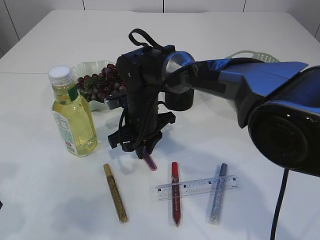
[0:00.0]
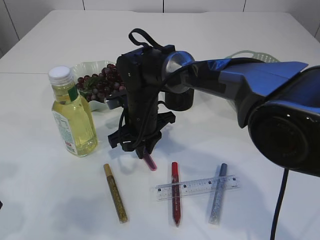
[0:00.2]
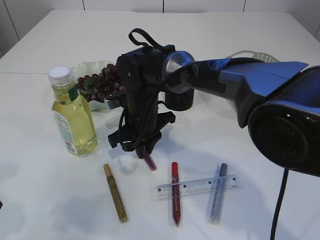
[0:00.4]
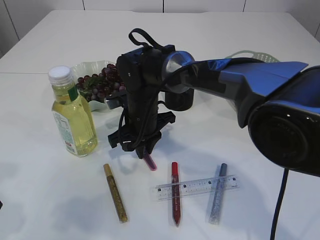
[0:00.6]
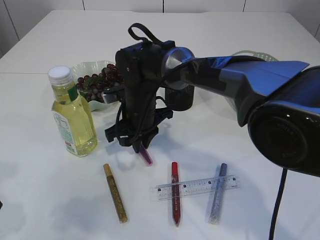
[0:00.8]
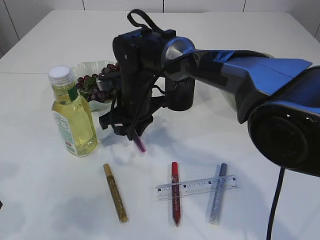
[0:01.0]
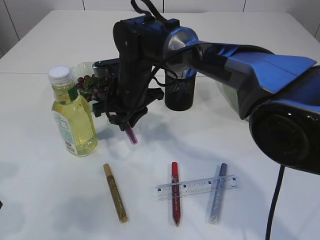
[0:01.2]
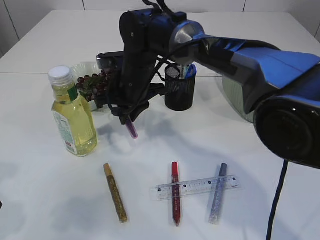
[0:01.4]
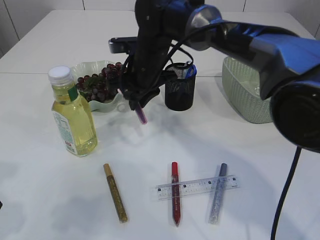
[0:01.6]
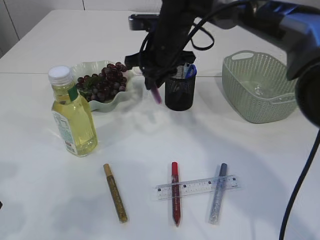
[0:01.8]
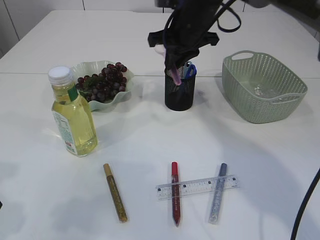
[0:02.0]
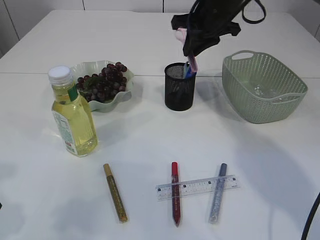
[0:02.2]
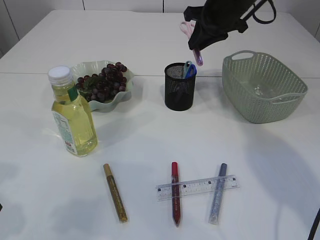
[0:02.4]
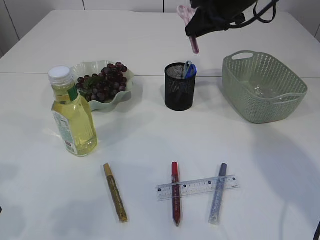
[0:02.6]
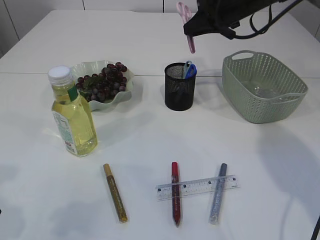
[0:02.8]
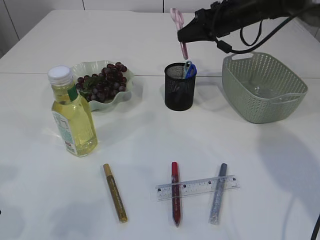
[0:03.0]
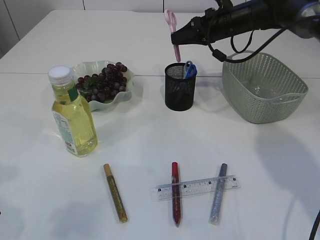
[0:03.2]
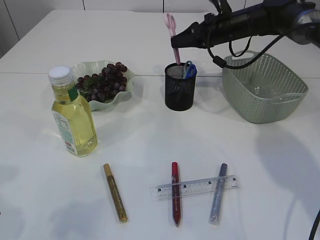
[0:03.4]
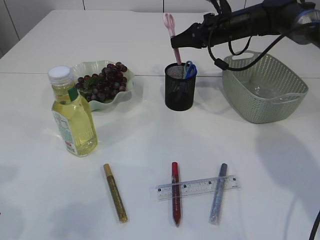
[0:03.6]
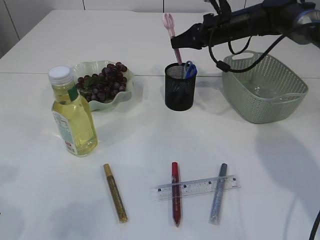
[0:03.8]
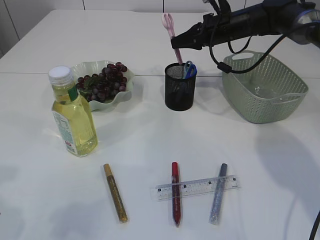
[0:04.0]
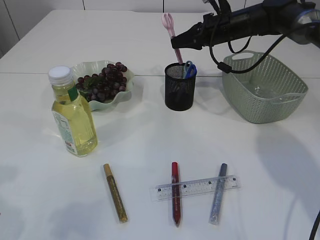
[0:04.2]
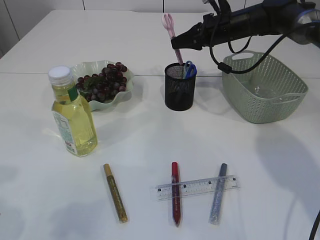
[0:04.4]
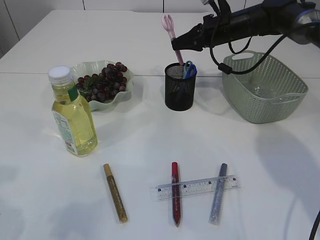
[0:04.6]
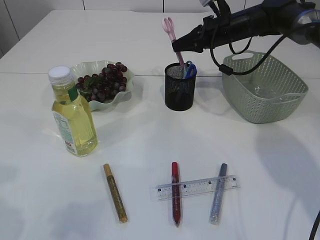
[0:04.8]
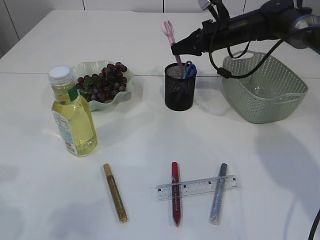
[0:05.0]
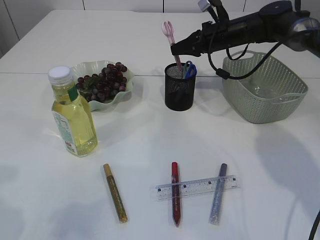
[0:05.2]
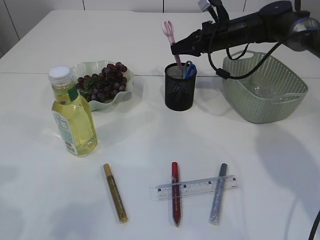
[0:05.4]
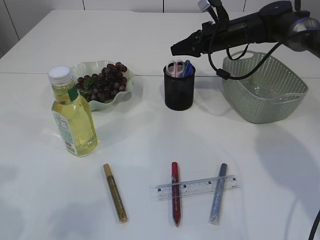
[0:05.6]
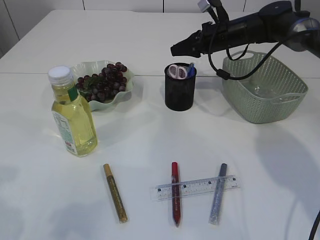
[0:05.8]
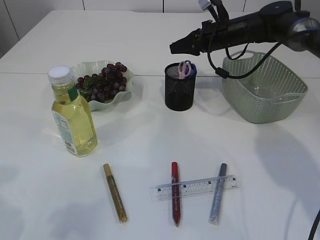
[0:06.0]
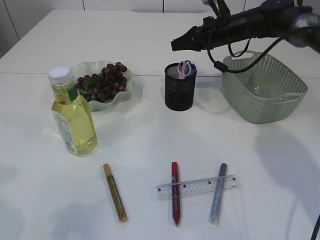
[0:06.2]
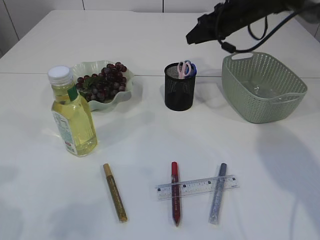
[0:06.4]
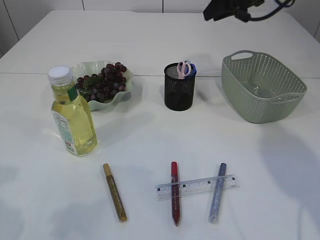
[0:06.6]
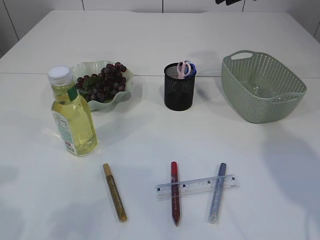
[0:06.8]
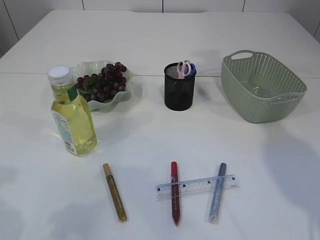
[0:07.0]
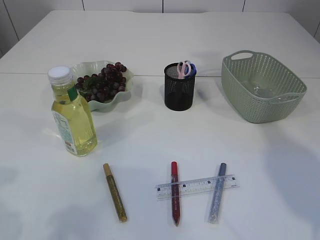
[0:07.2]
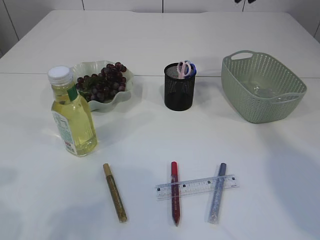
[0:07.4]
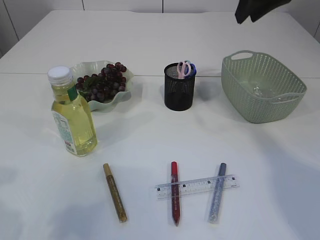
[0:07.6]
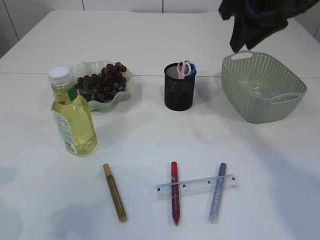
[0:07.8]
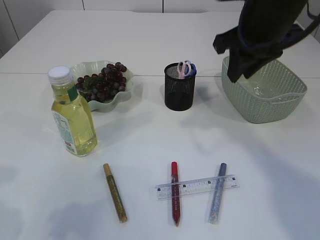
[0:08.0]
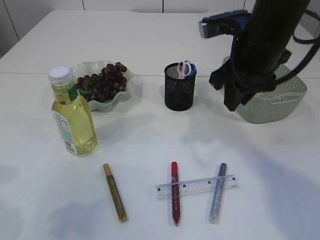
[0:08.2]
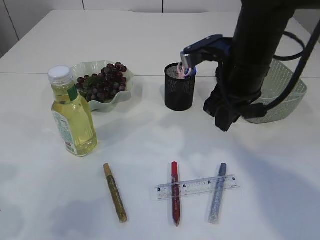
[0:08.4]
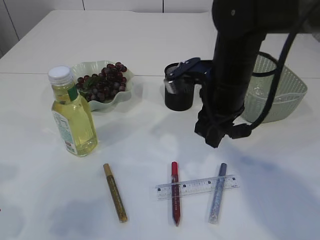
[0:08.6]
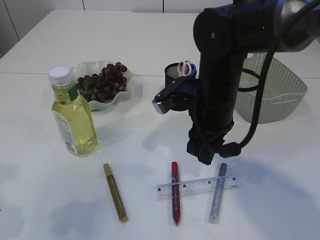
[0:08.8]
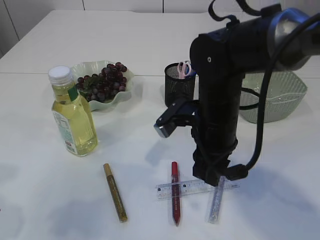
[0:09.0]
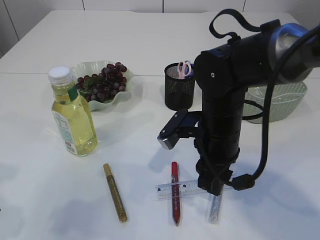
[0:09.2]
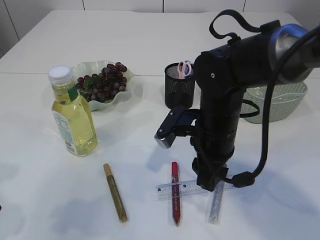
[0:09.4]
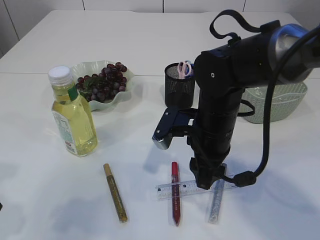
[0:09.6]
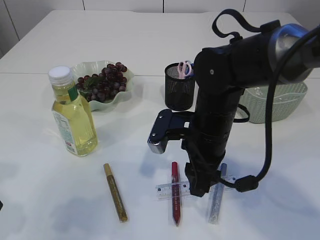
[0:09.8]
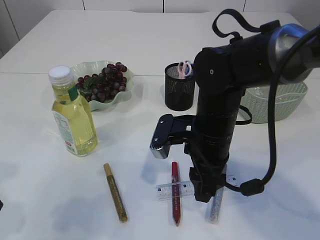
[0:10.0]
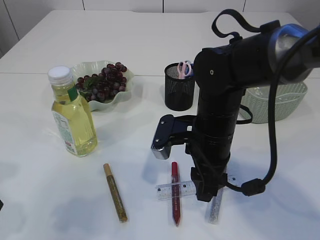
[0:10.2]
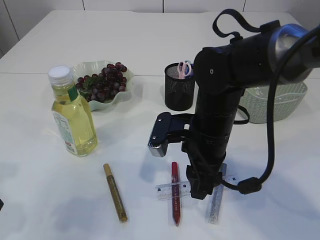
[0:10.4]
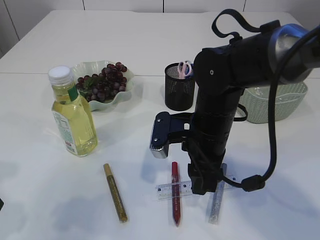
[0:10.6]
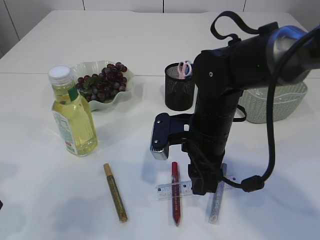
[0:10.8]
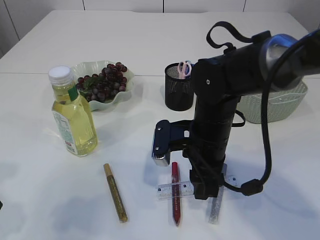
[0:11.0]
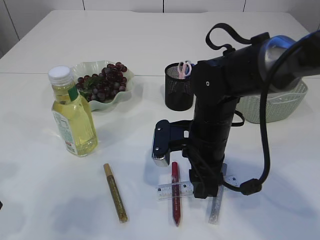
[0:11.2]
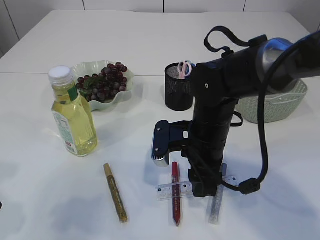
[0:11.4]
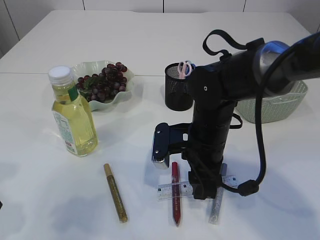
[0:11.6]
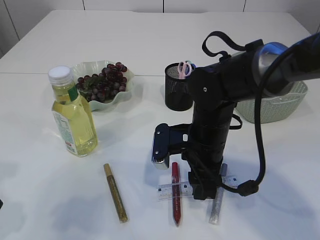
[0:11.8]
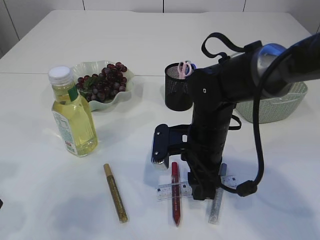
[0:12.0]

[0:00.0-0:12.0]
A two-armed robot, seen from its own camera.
Step, 0:01.4 to 0:06.4: Place the pink scissors into the pen holder.
0:00.0 to 0:01.6: The right gripper goes approximately 10 cm upward.
0:01.6 to 0:03.0: The right gripper shifts about 20 cm to the right and forward.
0:04.4 to 0:06.0: There are only small adjustments of the grippers.
0:06.0 to 0:07.6: The right gripper heads upward and backward, covering about 25 cm.
0:07.6 to 0:09.0: The right gripper moves downward, to the left and backward, roughly 25 cm.
0:10.4 to 0:12.0: The grippers stay close to where they were, moving slightly.

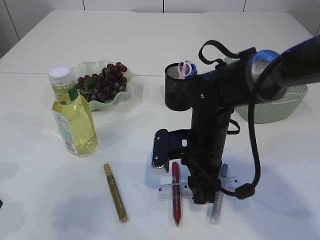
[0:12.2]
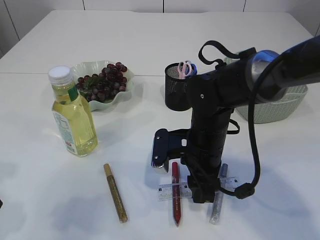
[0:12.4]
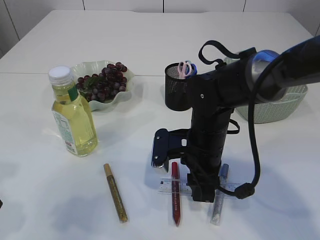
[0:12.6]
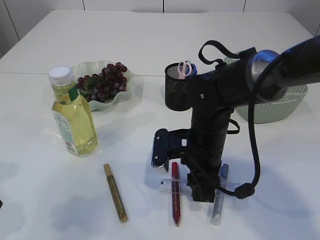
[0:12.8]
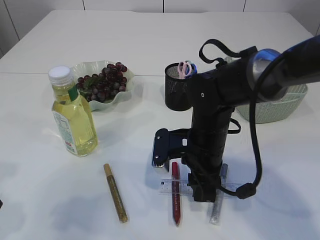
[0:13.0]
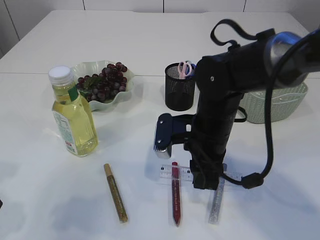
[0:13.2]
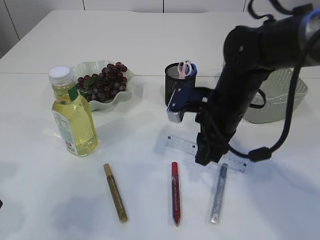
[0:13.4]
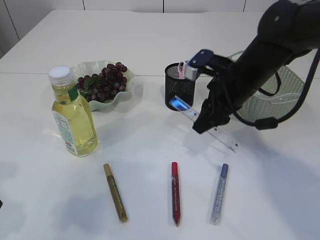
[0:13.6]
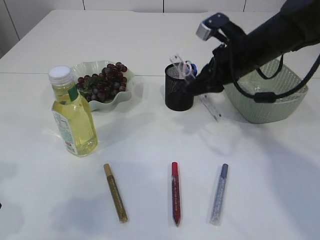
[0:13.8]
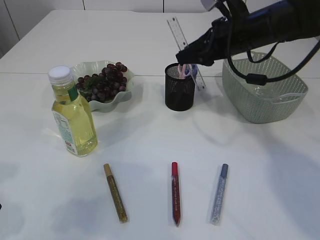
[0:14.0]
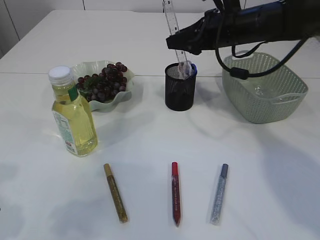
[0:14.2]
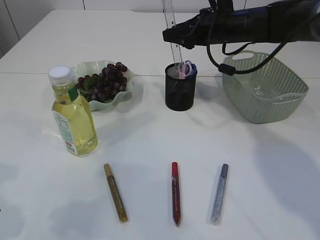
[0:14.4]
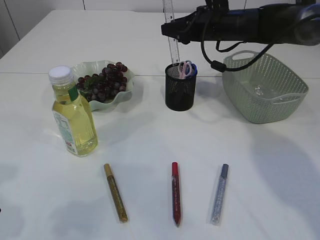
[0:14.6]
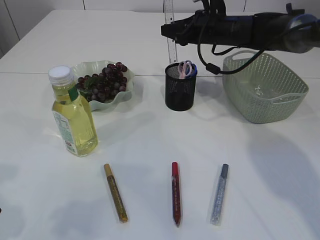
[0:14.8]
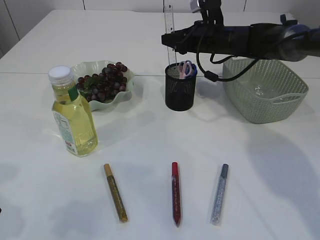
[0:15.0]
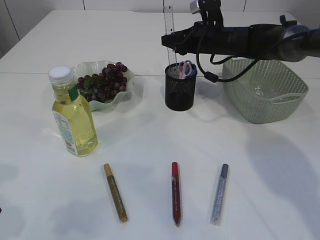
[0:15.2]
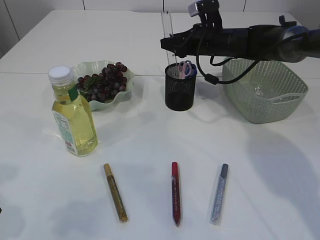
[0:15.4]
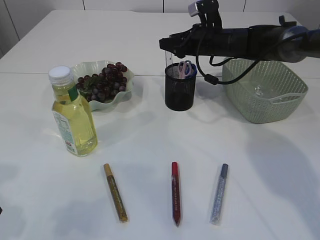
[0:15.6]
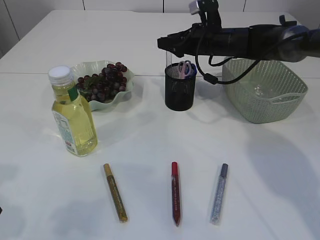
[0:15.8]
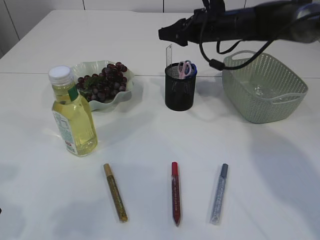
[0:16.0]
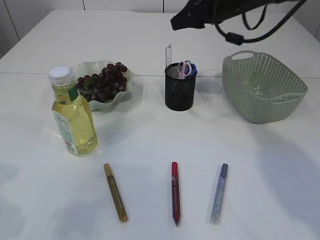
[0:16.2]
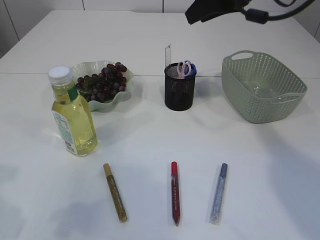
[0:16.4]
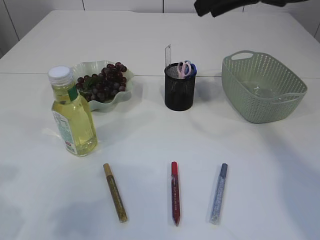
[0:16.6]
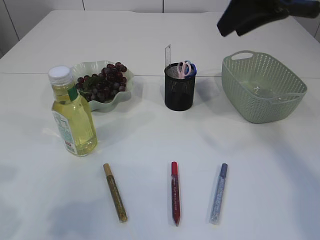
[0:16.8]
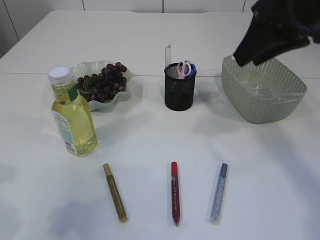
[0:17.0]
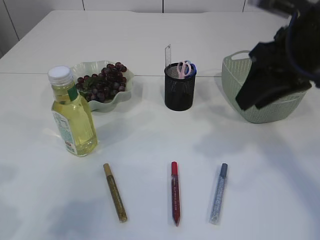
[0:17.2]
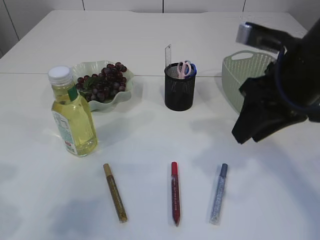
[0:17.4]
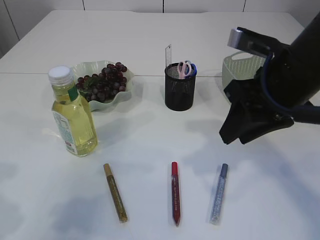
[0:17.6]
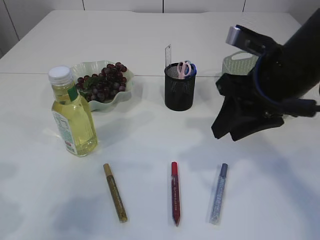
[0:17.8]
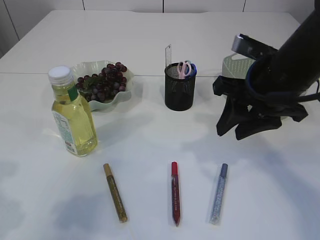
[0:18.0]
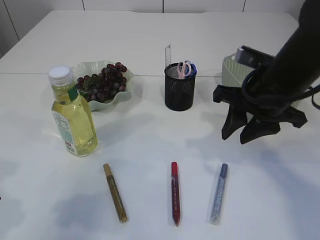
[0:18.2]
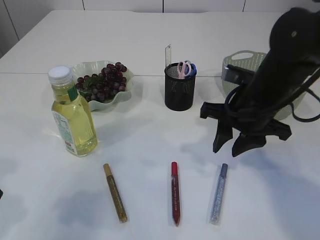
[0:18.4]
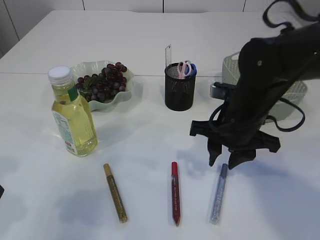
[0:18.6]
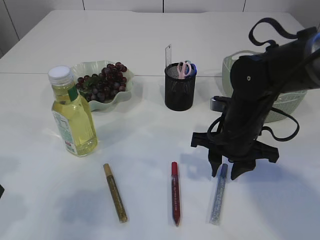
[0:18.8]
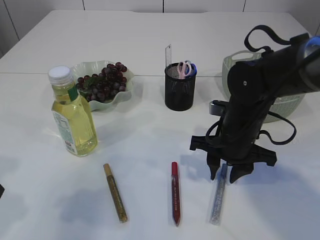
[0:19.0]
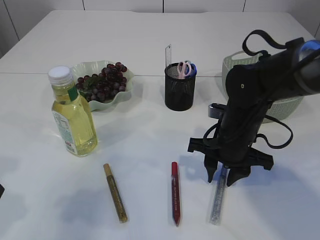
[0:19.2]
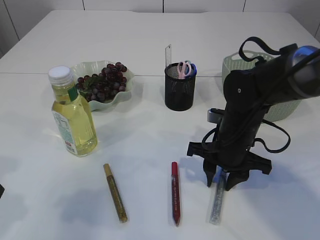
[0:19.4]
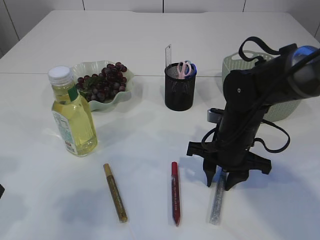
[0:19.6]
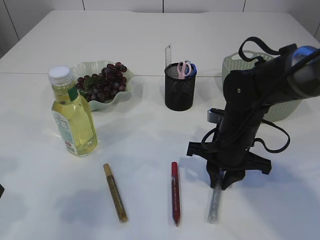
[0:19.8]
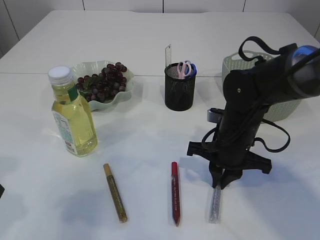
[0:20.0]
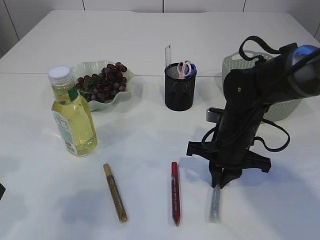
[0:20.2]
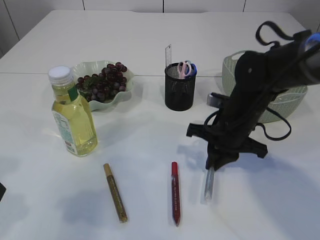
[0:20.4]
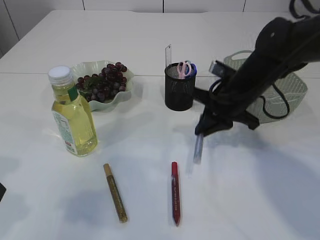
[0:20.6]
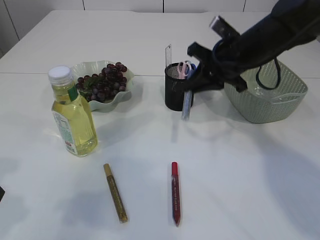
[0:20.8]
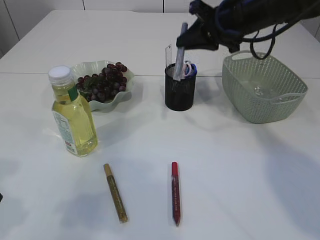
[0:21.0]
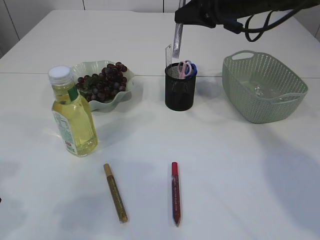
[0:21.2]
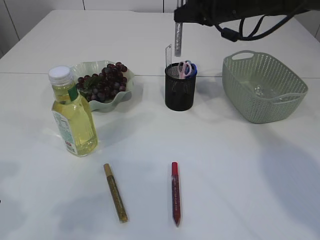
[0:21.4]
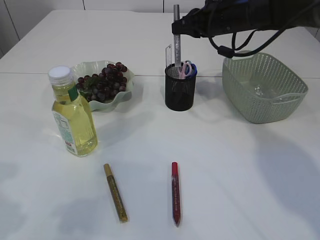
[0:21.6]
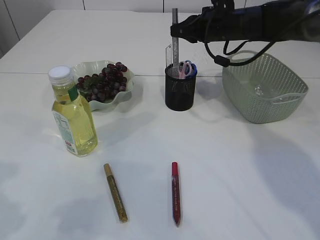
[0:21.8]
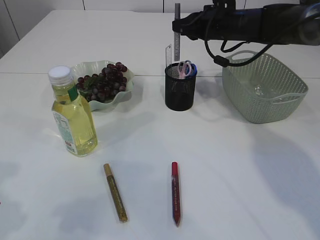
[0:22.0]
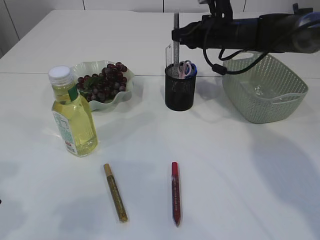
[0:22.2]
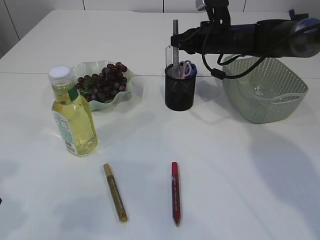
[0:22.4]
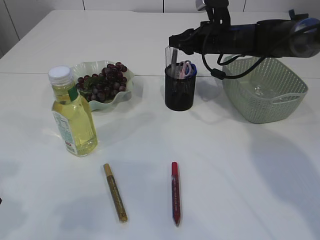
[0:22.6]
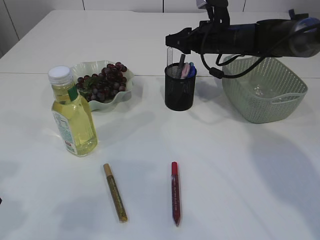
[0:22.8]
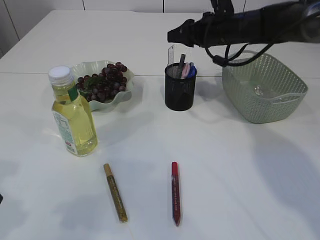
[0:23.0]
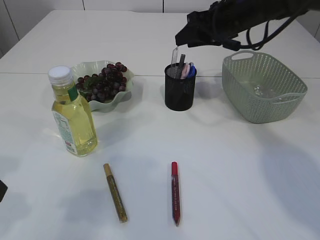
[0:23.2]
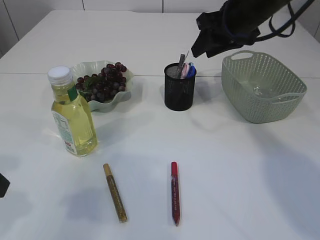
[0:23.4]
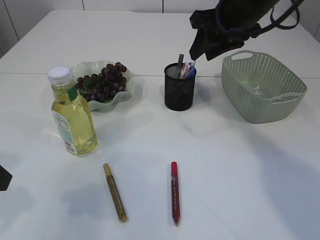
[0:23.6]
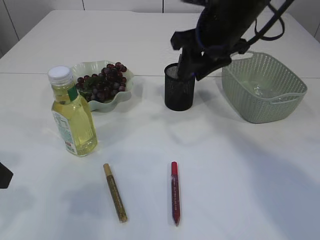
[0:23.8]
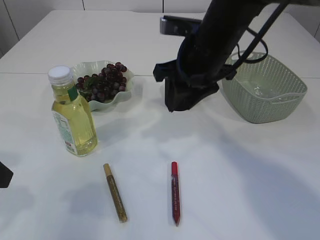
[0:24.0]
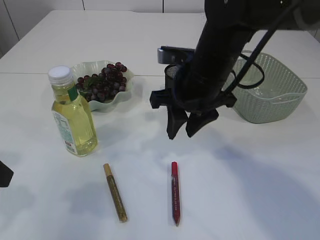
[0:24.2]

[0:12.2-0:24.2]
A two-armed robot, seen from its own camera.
Step, 0:13.6 to 0:16.0: Place the ruler into the pen holder.
Step, 0:16.2 to 0:20.6: pick up the silver glue.
Step, 0:20.8 to 0:23.0: place the silver glue into the pen holder.
0:12.2 to 0:13.8: The right gripper moves upward, forward and to the right, about 15 cm.
0:13.8 to 0:15.2: The right gripper travels forward by about 15 cm.
0:15.2 to 0:16.6: The right gripper moves upward and backward, about 25 cm.
0:16.6 to 0:18.2: The right gripper heads downward and backward, covering about 15 cm.
0:18.2 to 0:19.8: The right gripper travels downward by approximately 10 cm.
0:19.8 to 0:21.2: The right gripper heads upward and forward, covering about 25 cm.
0:21.2 to 0:22.6: The right gripper goes approximately 10 cm downward and forward.
0:22.6 to 0:24.2: The right gripper shifts some 20 cm backward and to the left.
